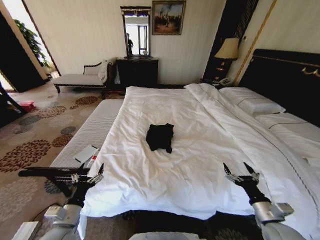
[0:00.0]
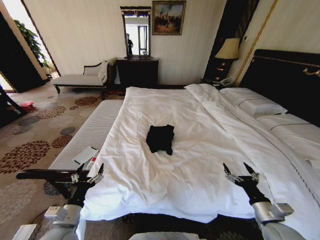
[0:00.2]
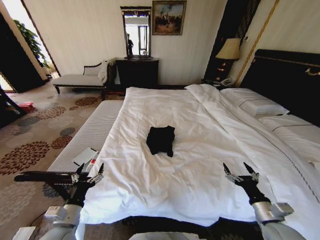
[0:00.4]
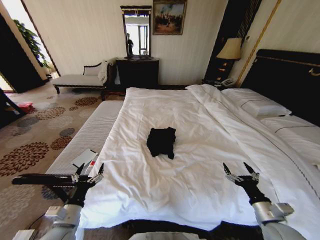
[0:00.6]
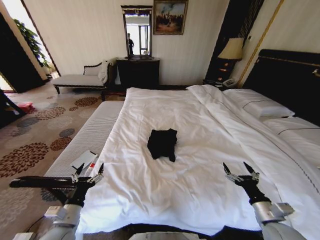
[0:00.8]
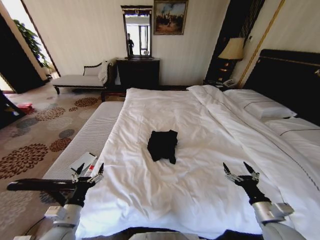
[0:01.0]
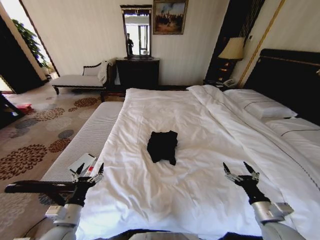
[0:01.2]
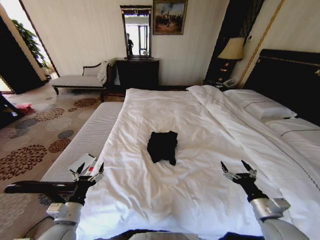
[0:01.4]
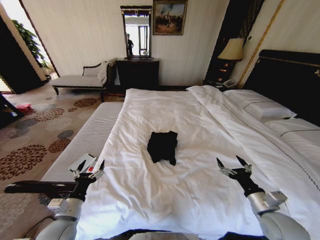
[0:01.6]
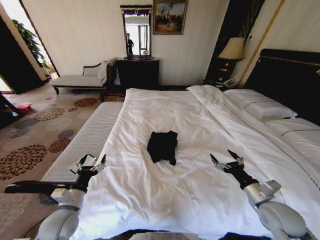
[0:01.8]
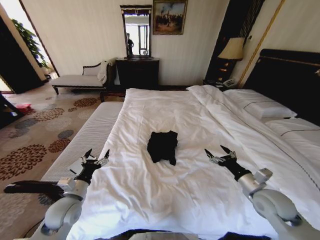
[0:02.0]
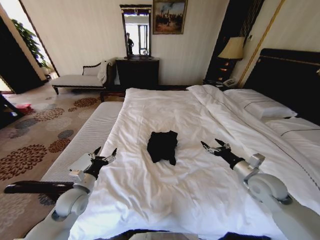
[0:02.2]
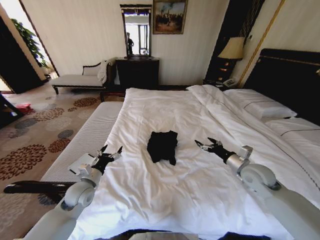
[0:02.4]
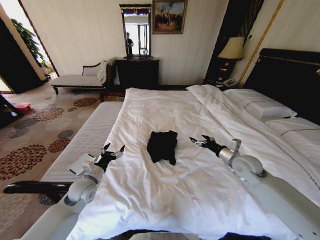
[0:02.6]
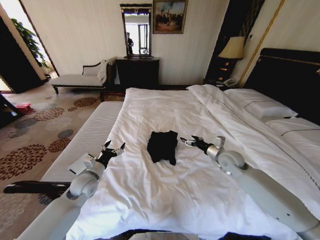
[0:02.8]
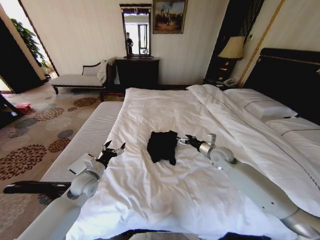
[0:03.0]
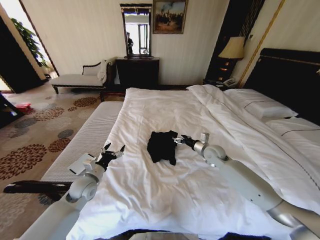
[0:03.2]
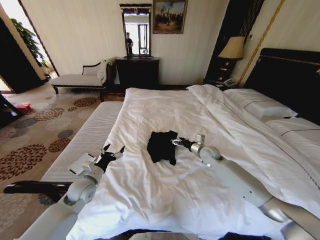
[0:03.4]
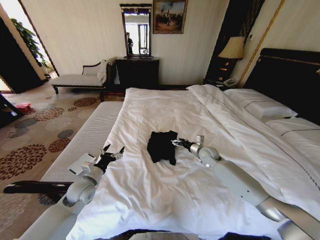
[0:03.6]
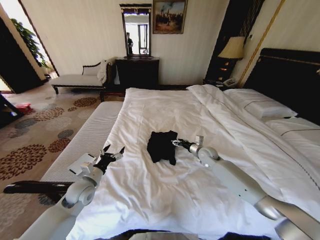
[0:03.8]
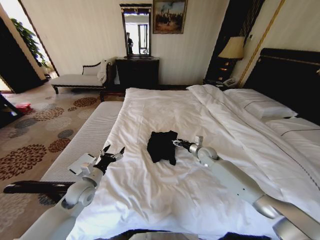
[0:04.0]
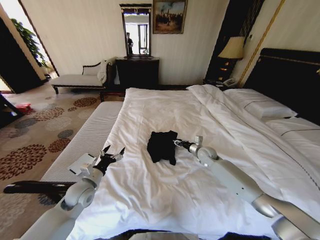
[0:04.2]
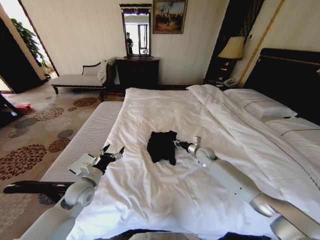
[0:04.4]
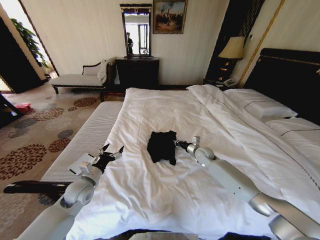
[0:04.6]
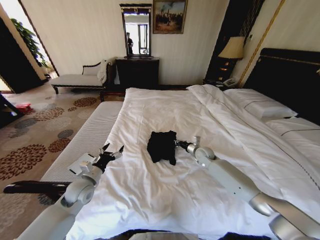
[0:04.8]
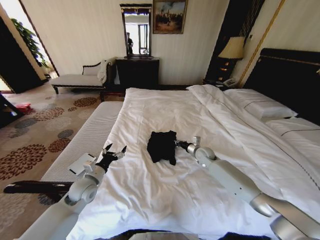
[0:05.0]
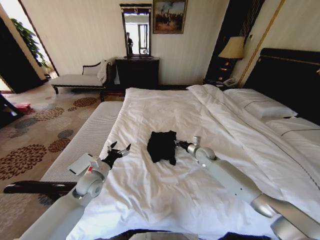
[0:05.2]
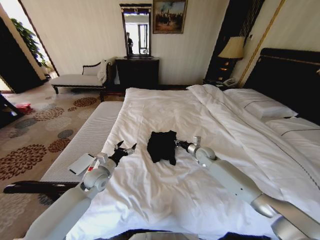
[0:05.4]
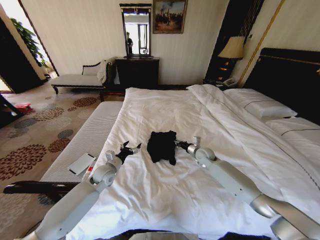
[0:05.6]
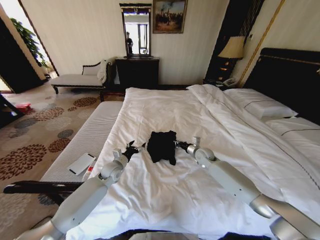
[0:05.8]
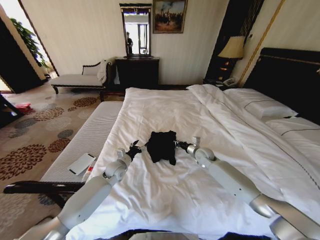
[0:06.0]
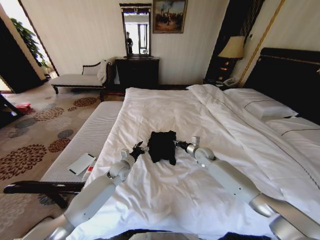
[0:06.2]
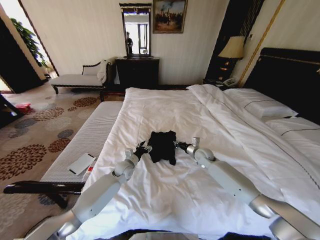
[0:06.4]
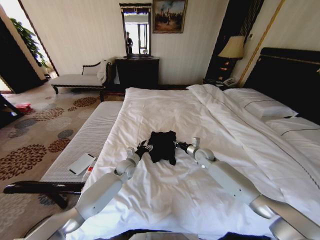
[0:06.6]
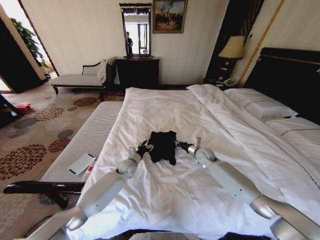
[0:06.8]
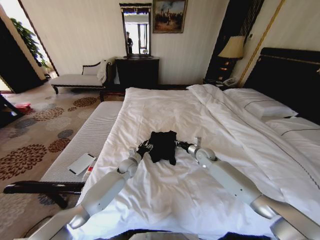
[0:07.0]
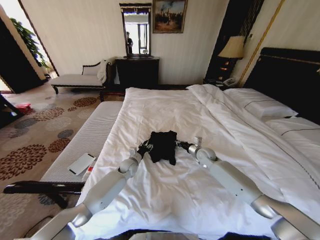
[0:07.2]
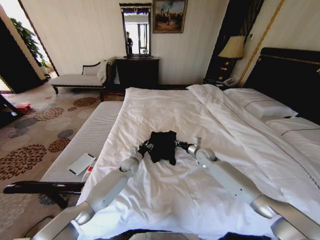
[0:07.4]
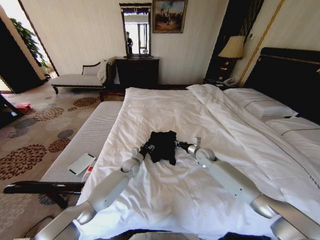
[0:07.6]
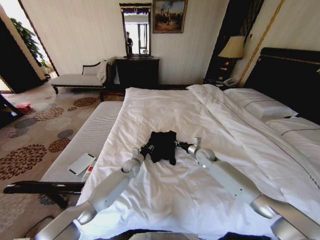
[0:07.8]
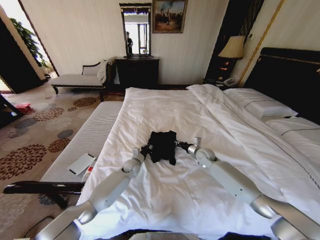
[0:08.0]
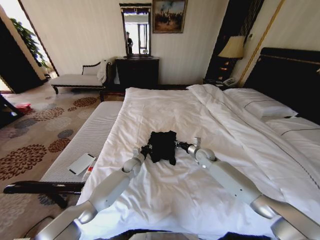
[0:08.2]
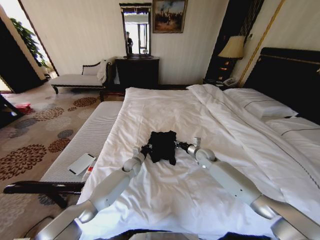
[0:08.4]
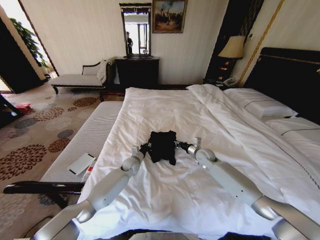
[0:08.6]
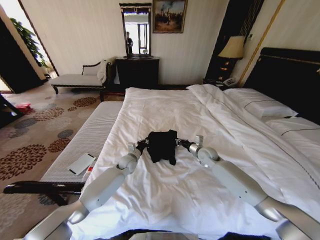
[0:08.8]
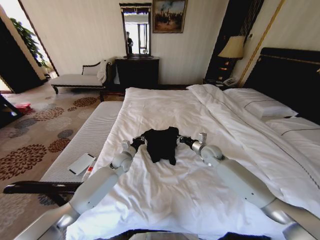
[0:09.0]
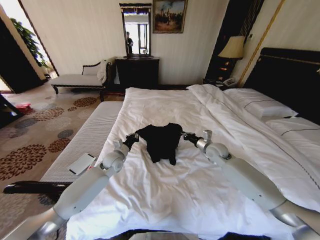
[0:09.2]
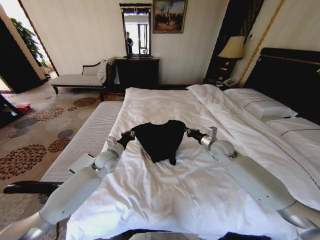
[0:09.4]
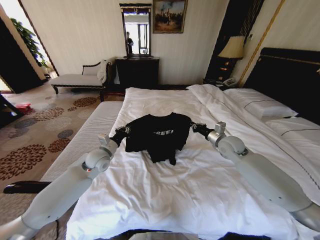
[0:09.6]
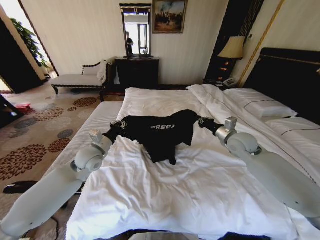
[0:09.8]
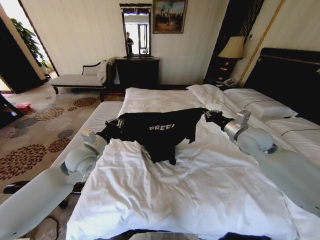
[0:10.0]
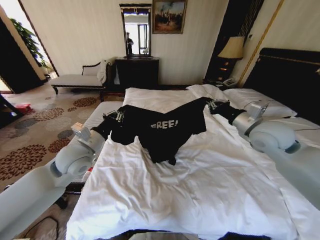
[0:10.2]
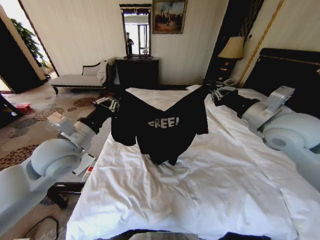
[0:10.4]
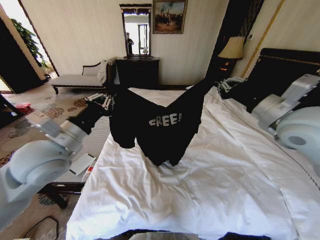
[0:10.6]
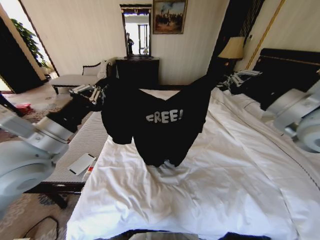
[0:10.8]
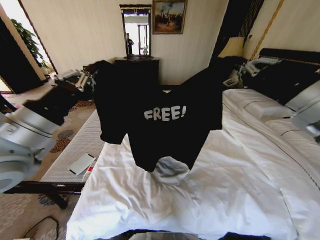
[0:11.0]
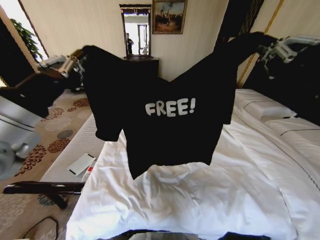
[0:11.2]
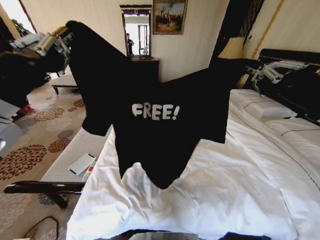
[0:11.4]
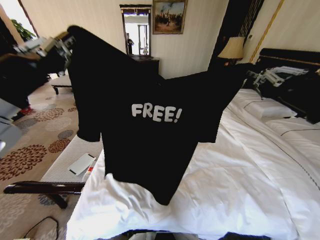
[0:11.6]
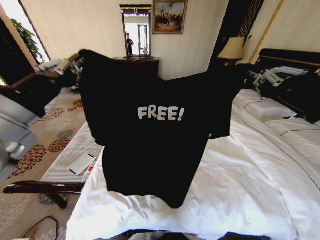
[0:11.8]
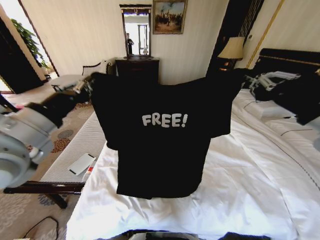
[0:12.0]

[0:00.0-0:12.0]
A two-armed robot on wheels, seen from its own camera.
Task of the whole recording: Fold the clothes on the bed.
0:01.6 to 0:03.0: The right gripper is displaced forward by approximately 25 cm, while the left gripper shifts approximately 15 cm forward.
0:03.0 to 0:04.4: The right gripper travels downward and forward by approximately 10 cm, and closes its fingers.
0:04.4 to 0:06.0: The left gripper shifts some 15 cm forward, to the right and downward. Meanwhile the right gripper closes its fingers.
0:06.0 to 0:07.6: The left gripper heads to the right, downward and forward, covering some 10 cm, and closes up.
0:07.6 to 0:09.0: The left gripper travels upward by roughly 5 cm, and closes up.
0:09.0 to 0:10.4: Both grippers move upward and backward, roughly 30 cm.
0:10.4 to 0:12.0: The right gripper heads backward and upward, covering approximately 15 cm. Meanwhile the left gripper is displaced upward and backward by approximately 10 cm.

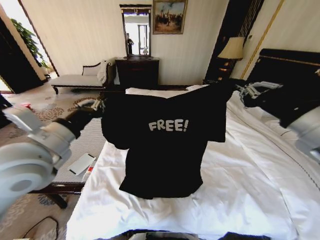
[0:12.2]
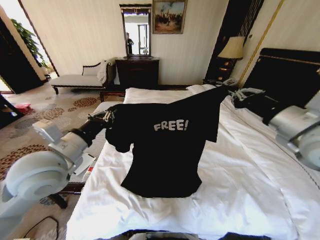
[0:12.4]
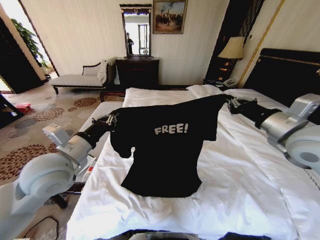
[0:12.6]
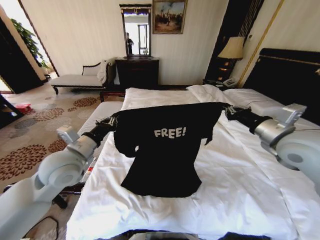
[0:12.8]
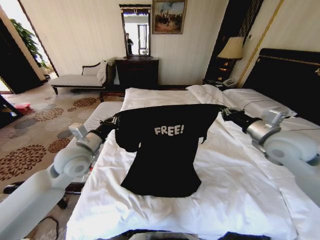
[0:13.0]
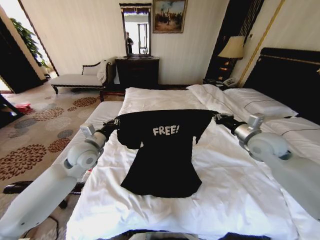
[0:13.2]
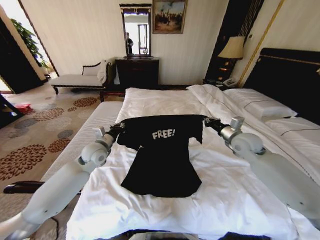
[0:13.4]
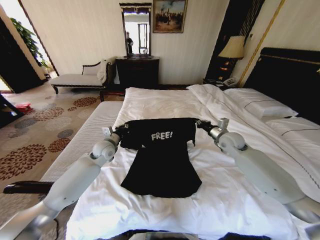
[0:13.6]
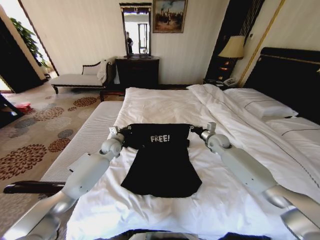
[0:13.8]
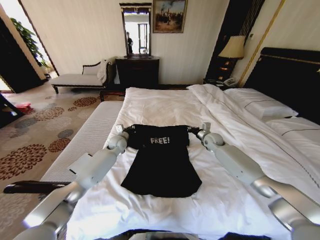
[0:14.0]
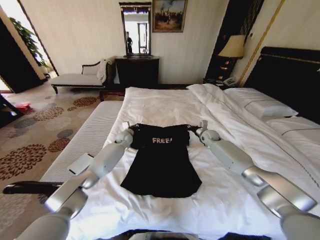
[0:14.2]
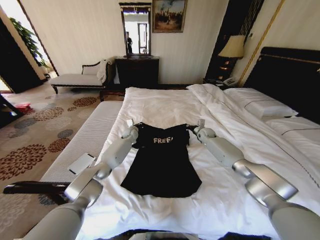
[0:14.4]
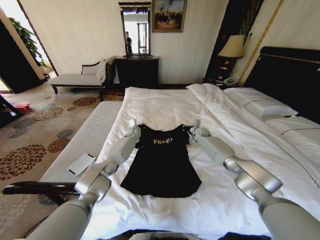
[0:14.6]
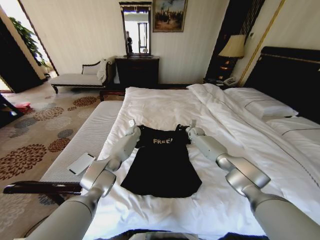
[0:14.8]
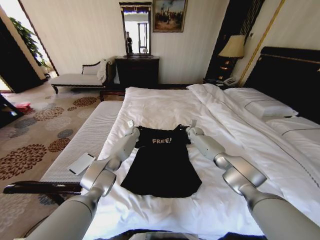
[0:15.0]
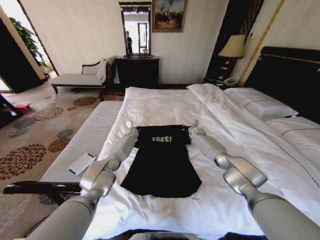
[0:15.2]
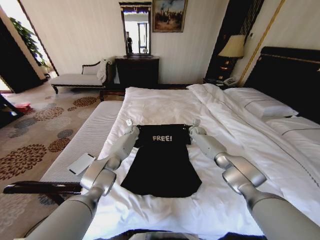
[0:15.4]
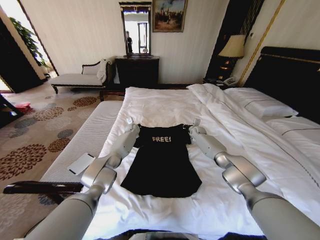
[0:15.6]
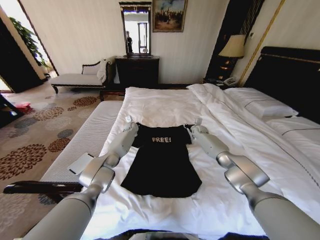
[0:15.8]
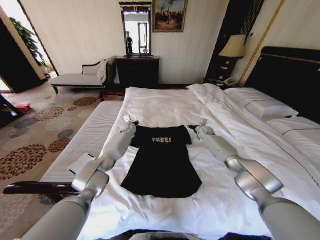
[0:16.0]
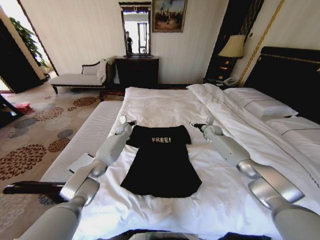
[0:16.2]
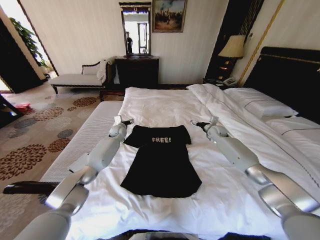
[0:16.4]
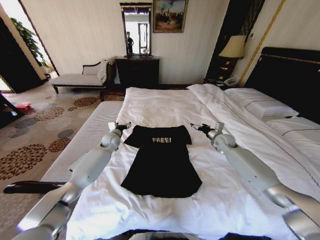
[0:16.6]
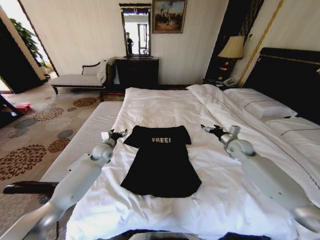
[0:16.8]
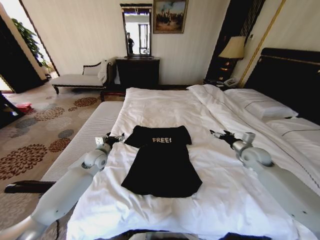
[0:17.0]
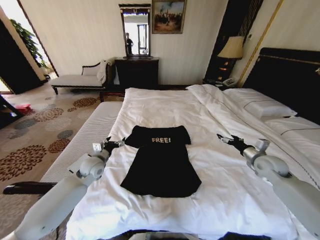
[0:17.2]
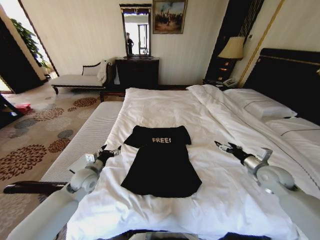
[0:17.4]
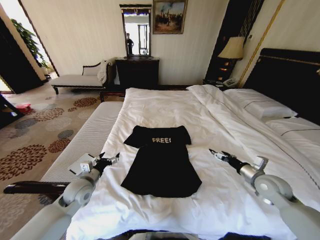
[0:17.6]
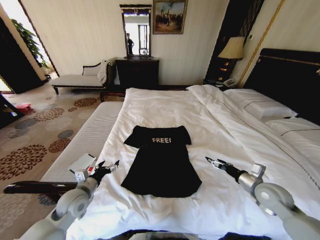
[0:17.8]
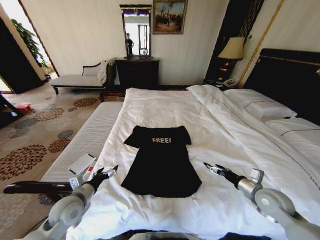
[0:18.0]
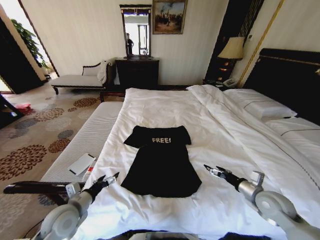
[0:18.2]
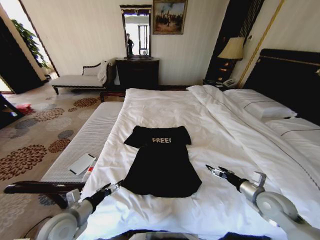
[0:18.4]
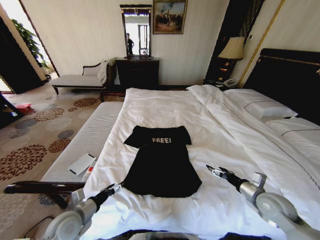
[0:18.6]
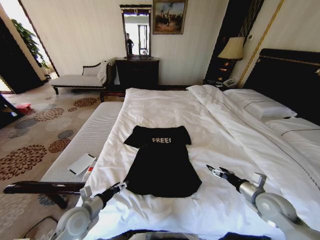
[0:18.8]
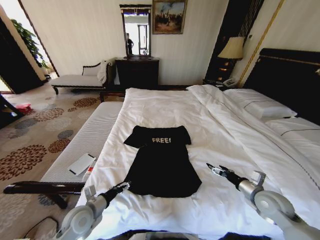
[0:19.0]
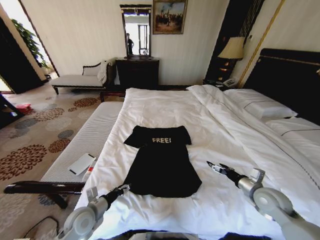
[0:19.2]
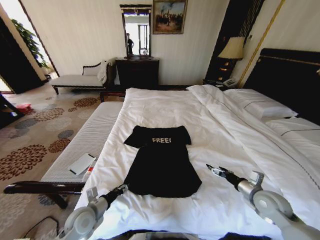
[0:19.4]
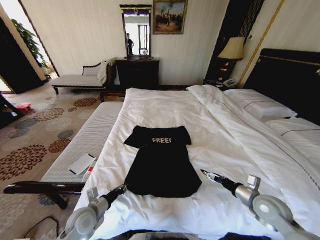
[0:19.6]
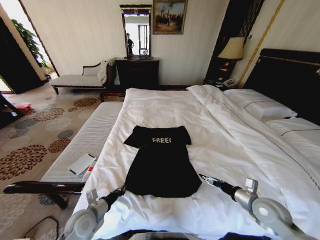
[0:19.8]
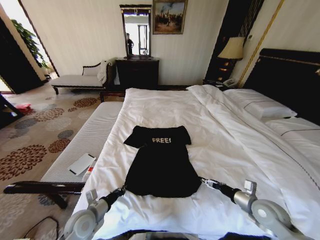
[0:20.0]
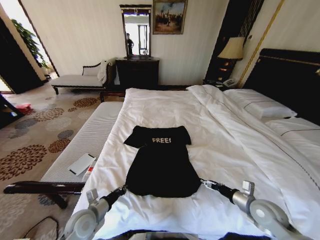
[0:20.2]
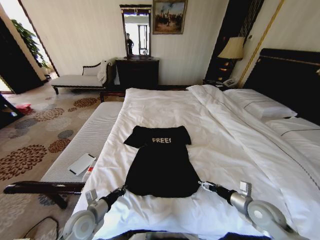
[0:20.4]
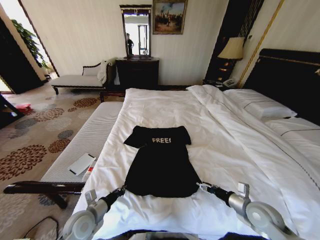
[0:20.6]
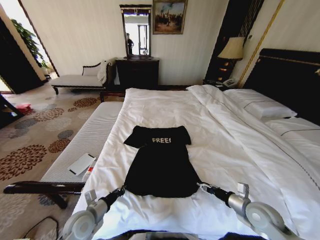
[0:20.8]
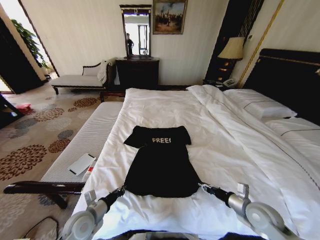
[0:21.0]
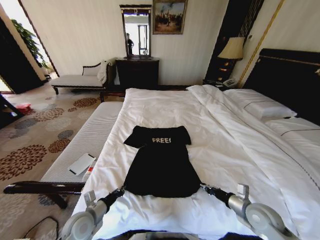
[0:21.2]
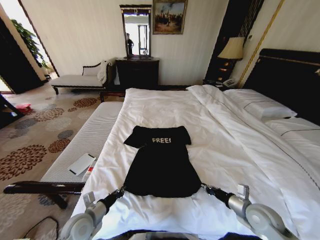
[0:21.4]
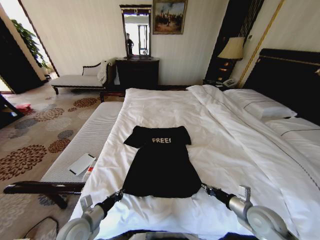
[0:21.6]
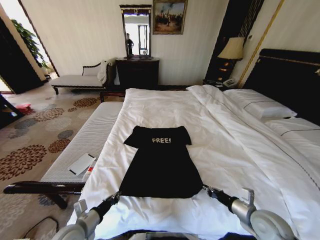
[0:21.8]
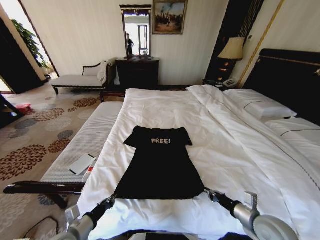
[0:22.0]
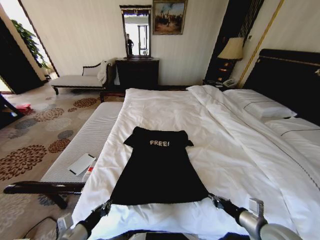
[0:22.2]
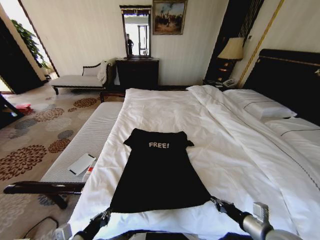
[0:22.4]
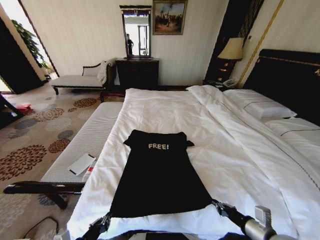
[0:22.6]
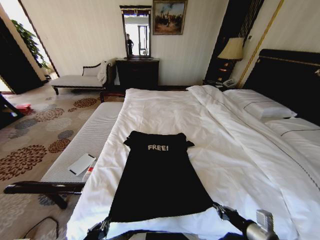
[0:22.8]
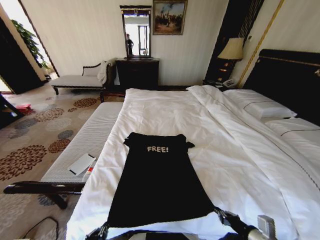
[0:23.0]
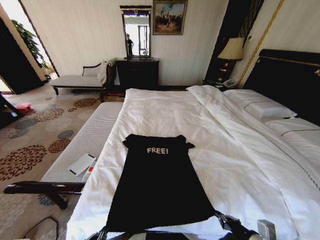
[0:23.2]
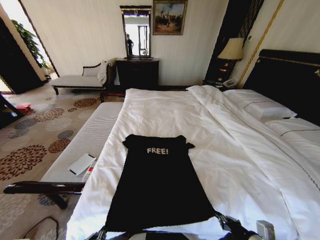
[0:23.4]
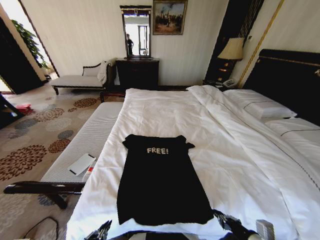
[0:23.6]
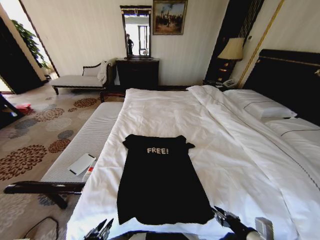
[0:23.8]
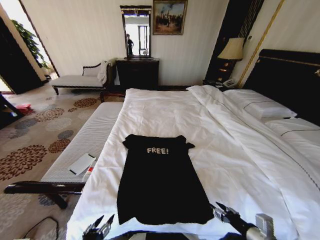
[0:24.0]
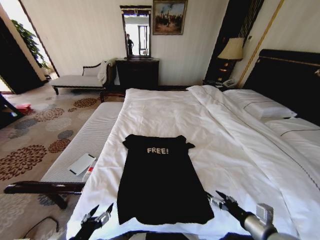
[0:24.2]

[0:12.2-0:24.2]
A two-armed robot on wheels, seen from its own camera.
Task of the whole recording: Fold the clothes on the bed.
0:12.2 to 0:13.8: The two grippers go about 35 cm forward and downward.
0:13.8 to 0:15.2: The right gripper goes about 15 cm forward and downward. Meanwhile the left gripper is displaced forward and to the right by some 20 cm.
0:15.2 to 0:16.6: The right gripper shifts some 15 cm backward, to the right and upward, and opens its fingers. Meanwhile the left gripper moves backward, to the left and upward, some 15 cm, and opens its fingers.
0:16.6 to 0:18.2: Both grippers travel together backward, about 35 cm.
0:18.2 to 0:19.8: The left gripper moves downward, roughly 5 cm, and closes its fingers.
0:19.8 to 0:21.2: The right gripper closes its fingers.
0:21.2 to 0:22.6: The two grippers go some 10 cm backward.
0:22.6 to 0:24.2: The right gripper opens, while the left gripper opens.
